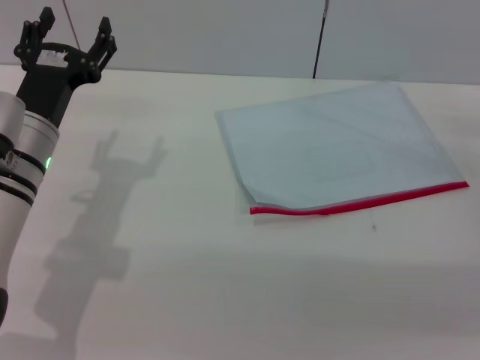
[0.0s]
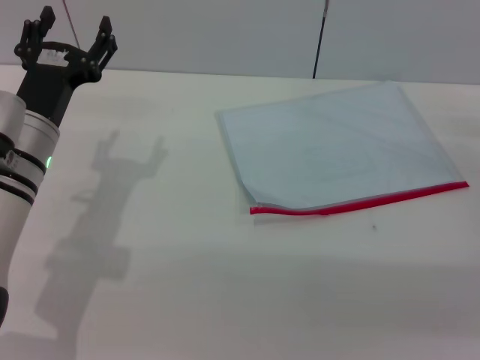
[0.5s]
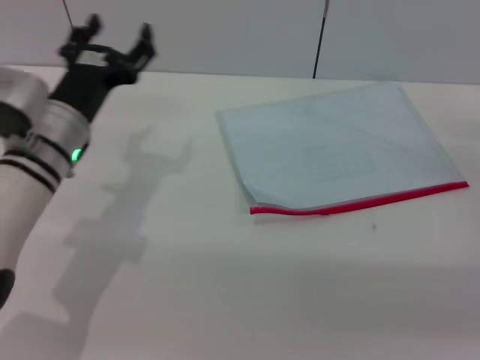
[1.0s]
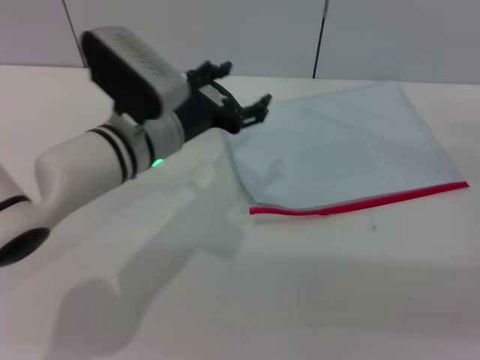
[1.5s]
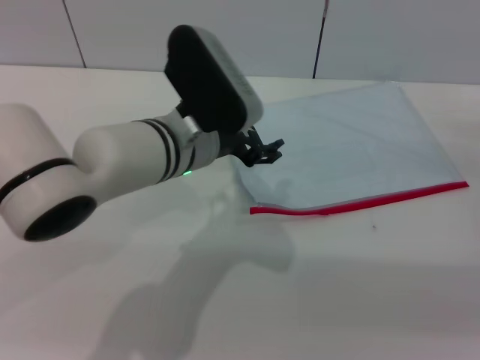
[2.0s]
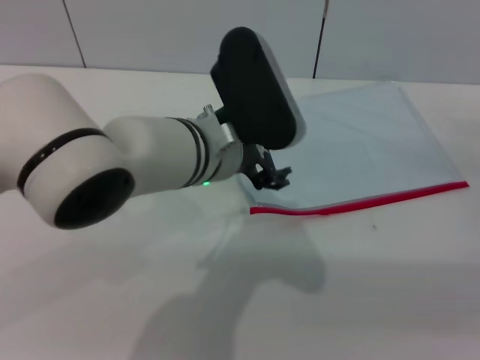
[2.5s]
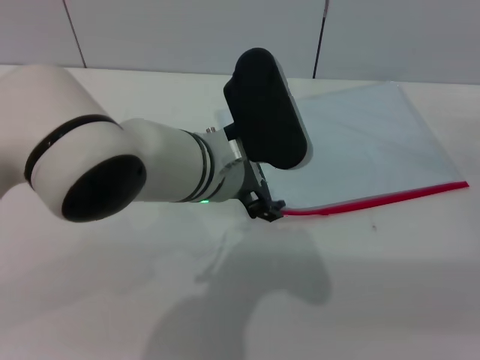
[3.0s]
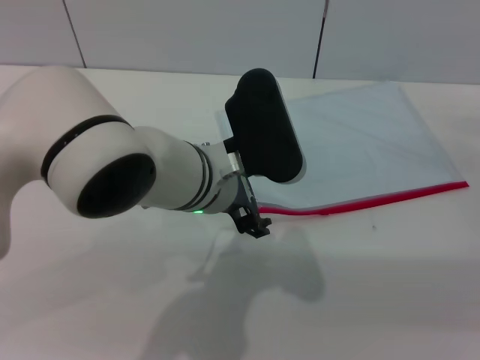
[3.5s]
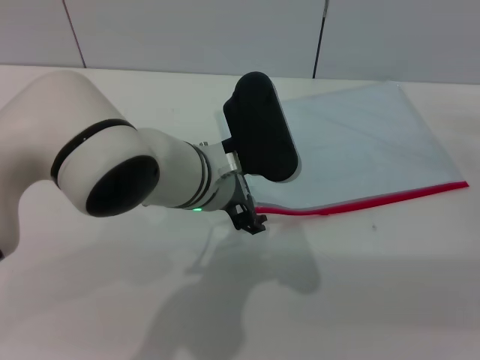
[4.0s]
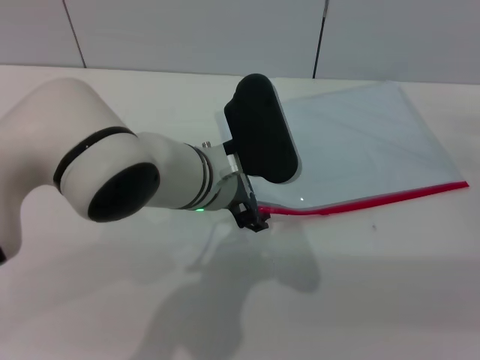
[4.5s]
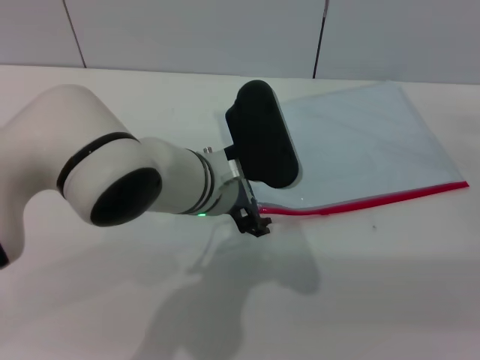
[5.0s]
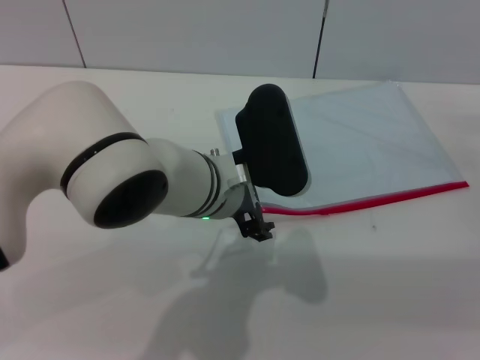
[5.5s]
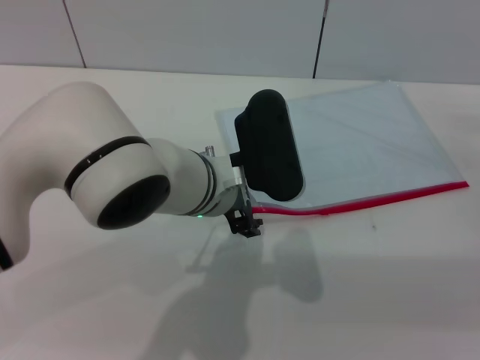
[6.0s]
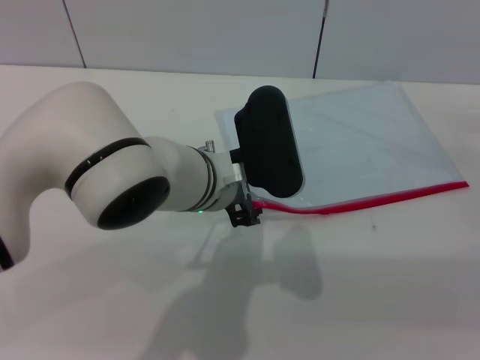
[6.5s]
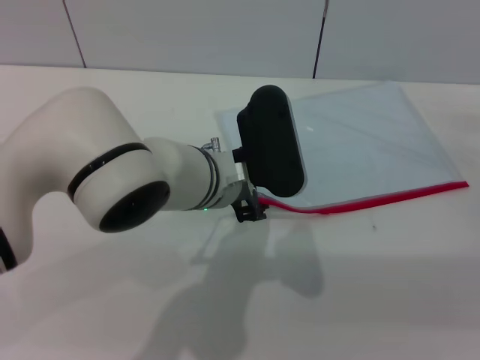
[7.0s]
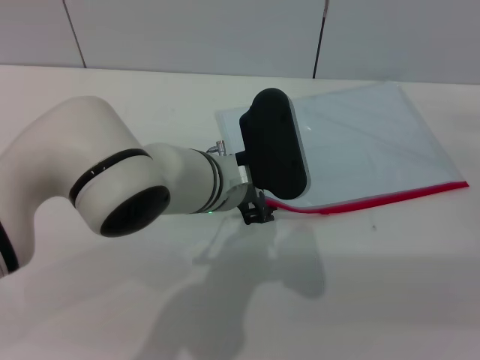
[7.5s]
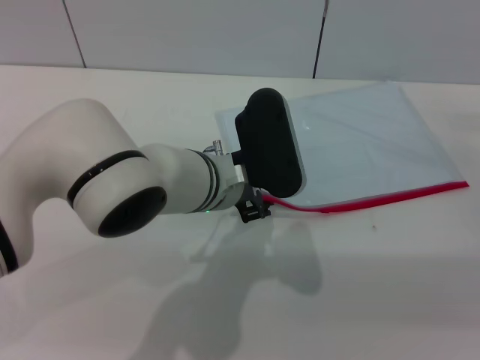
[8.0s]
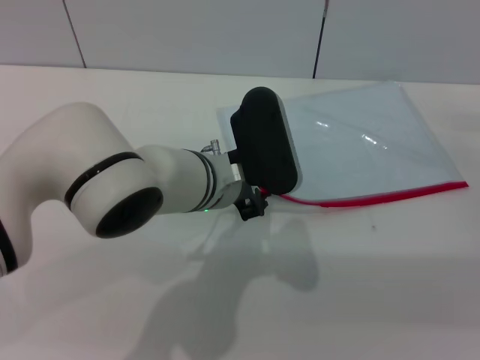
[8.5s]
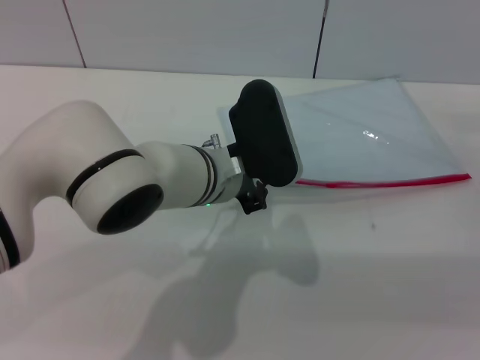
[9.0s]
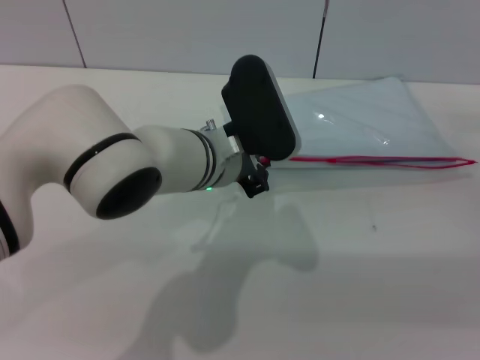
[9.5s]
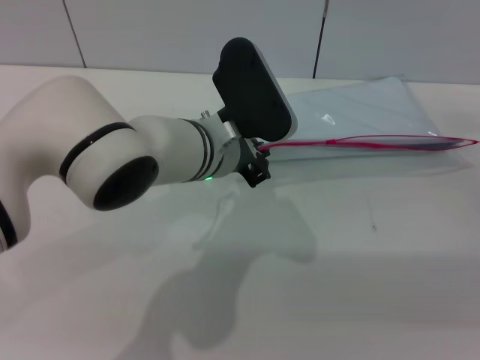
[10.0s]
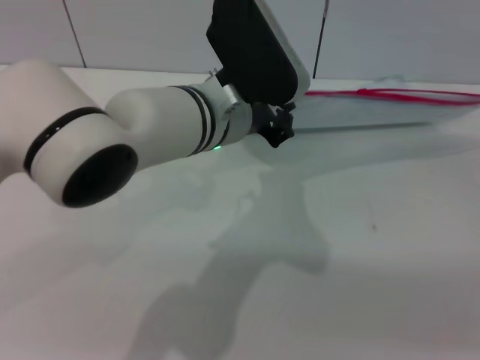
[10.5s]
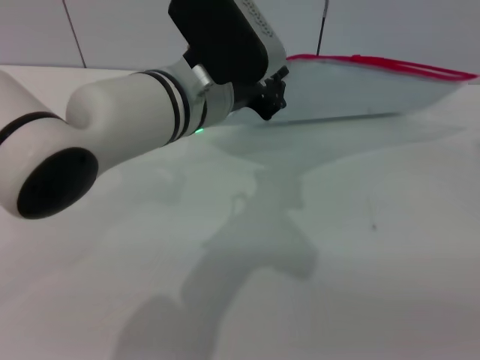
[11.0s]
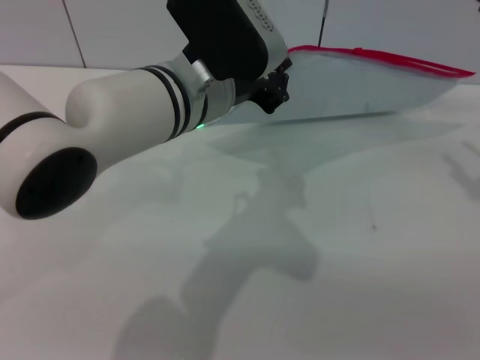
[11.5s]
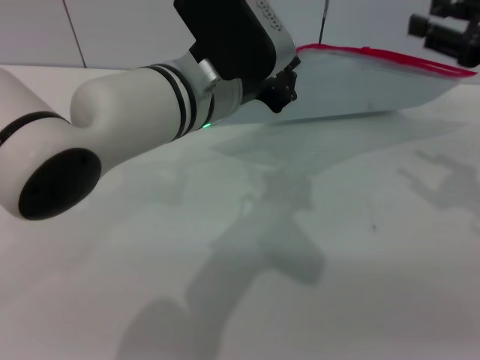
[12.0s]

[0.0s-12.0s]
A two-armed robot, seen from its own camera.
Step, 0.0s to 9.5s: Pick up the transparent plastic bag with the left gripper.
0.0s to 2.0s: The left gripper shifts some 15 cm to the right.
4.0s to 8.0s: The grippers stay close to where they were, moving slightly.
8.0s to 10.0s: The left gripper closes.
10.0s to 12.0s: The right gripper moves upward, some 15 cm; the left gripper shifts some 5 cm upward.

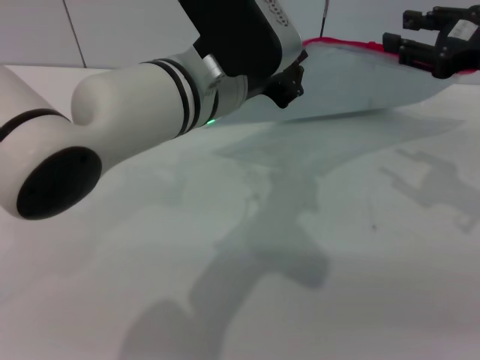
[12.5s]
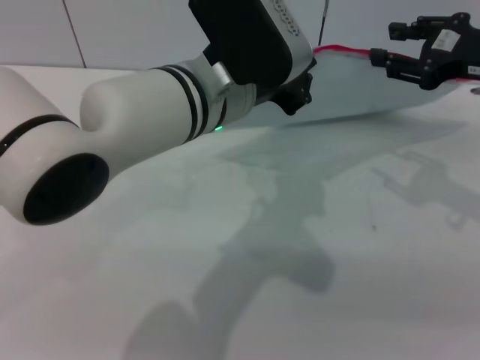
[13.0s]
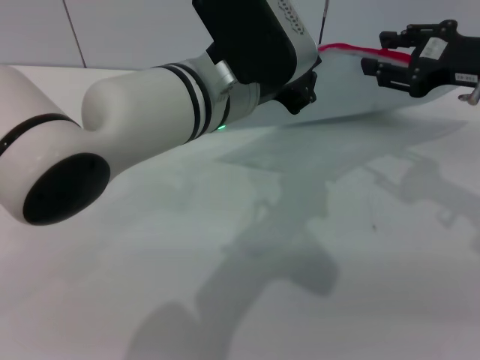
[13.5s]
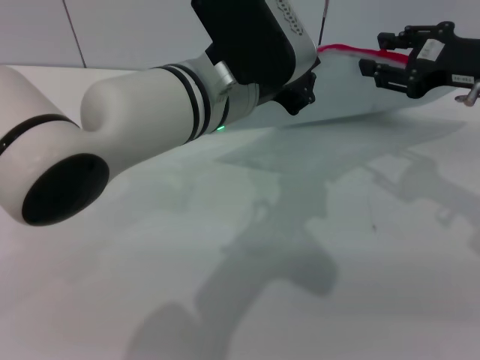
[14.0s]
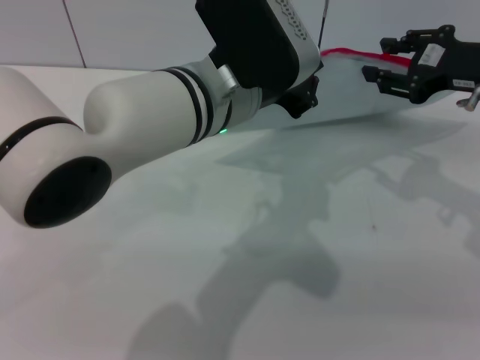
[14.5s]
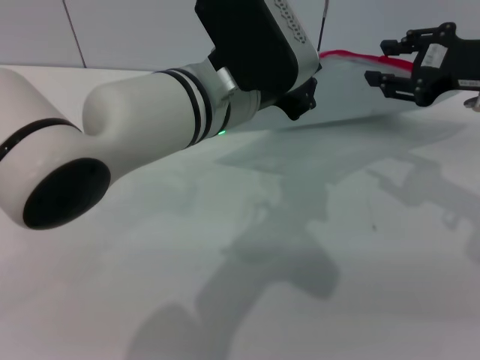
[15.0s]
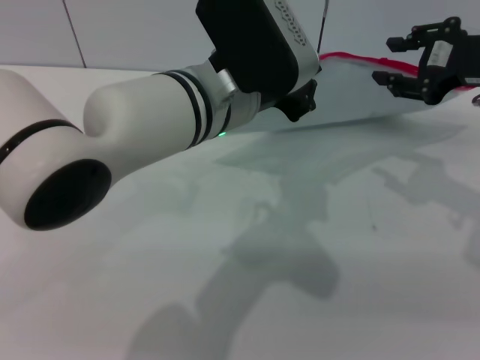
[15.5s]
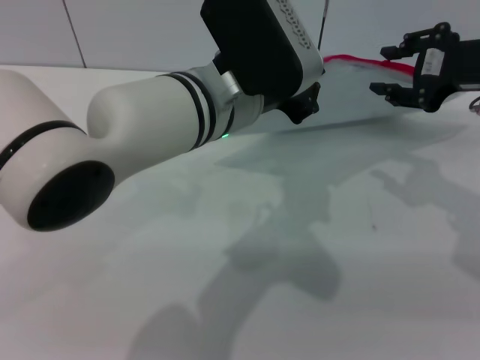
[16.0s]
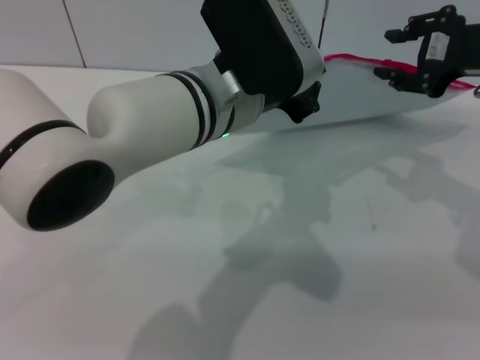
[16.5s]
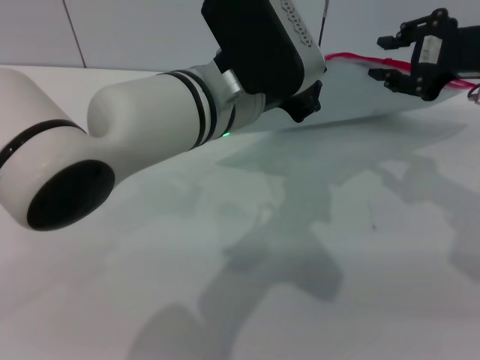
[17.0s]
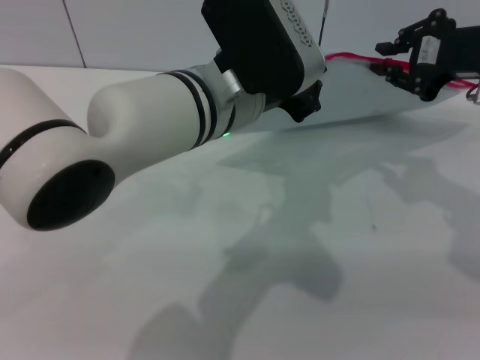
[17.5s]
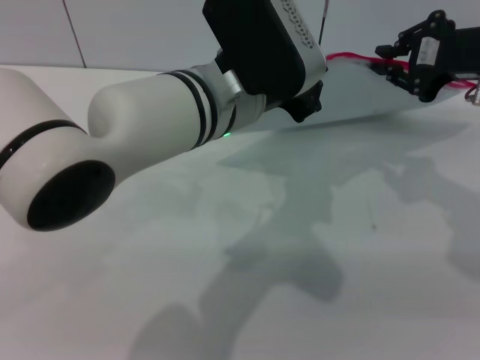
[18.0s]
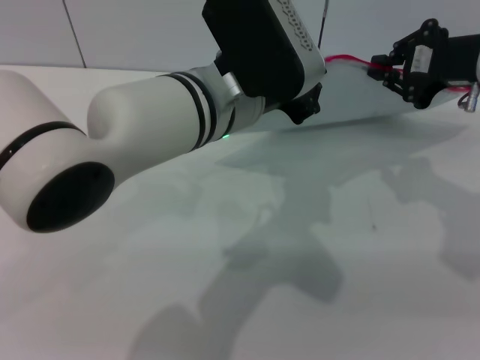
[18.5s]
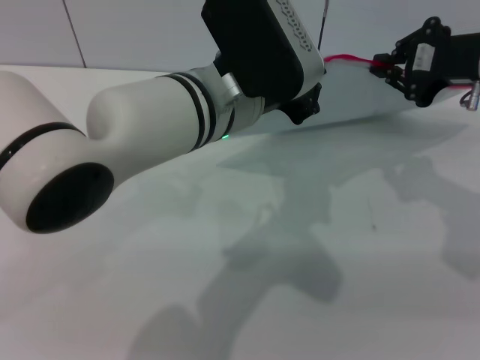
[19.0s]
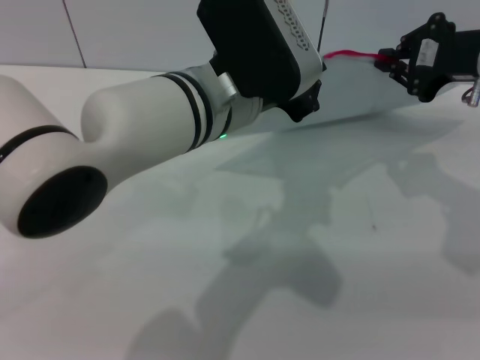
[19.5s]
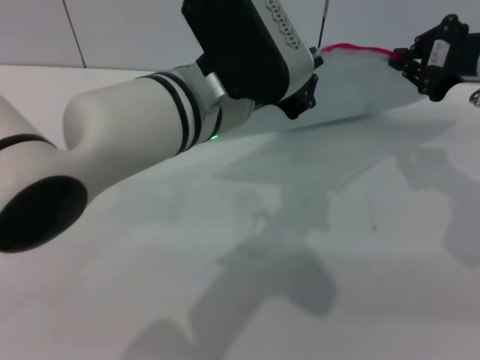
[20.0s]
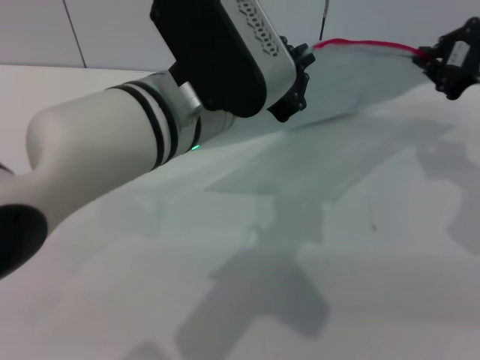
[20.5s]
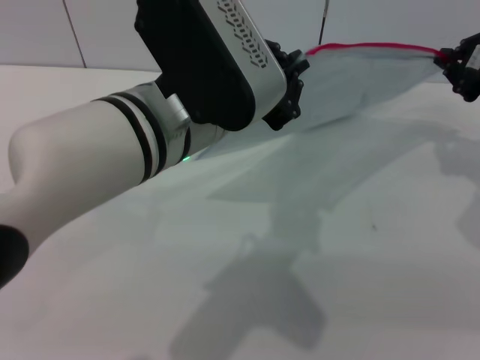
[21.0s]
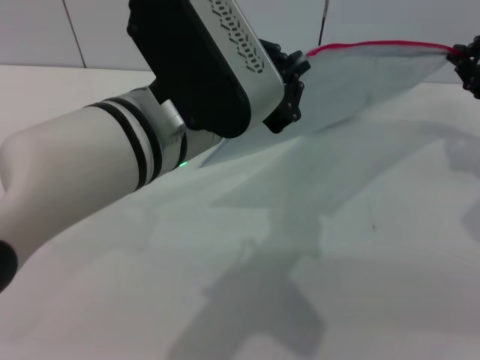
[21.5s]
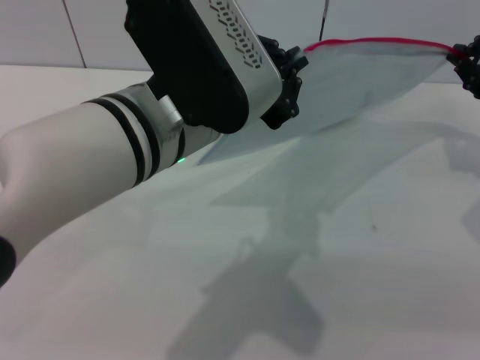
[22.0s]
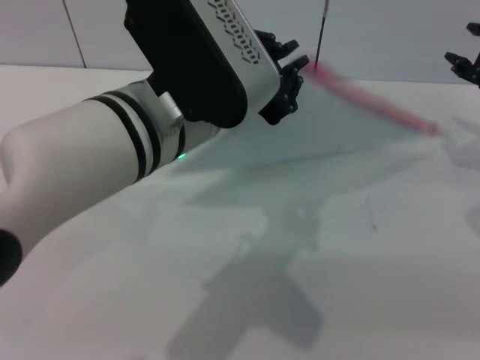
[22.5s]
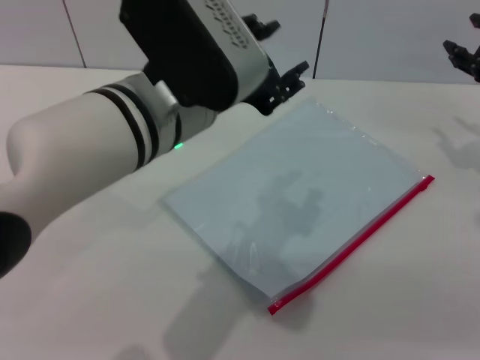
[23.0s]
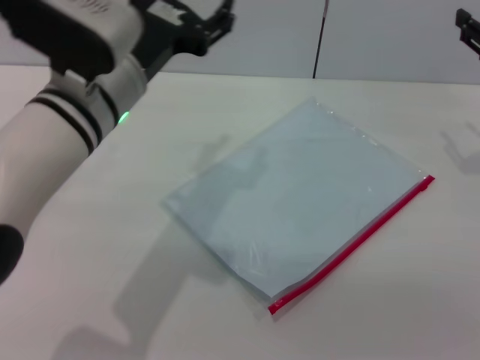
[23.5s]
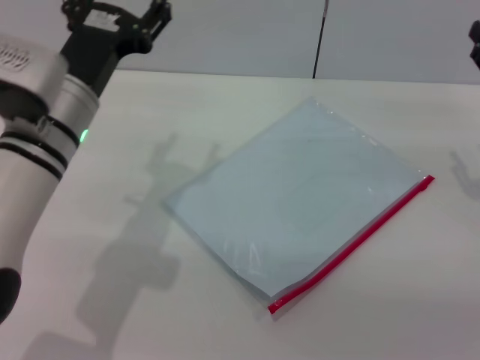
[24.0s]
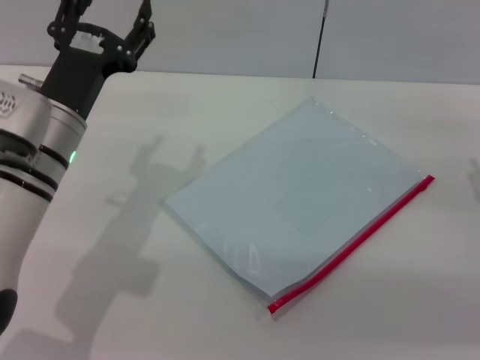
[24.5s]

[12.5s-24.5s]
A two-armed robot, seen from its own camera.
Step, 12.5s to 22.0s: Pulling up the zipper on the transparent plastic bag with the right gripper to close it.
Step, 22.5s to 23.0s: Place the transparent plastic bag.
12.5s to 14.5s: The grippers make only small movements.
16.5s to 18.5s: The right gripper closes up.
20.5s to 22.5s: The right gripper opens its fingers.
22.5s to 24.5s: The right gripper is displaced backward and downward by about 15 cm, and opens, while the left gripper is displaced to the left, downward and forward by approximately 20 cm, and opens up.
